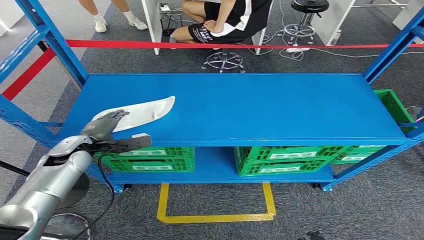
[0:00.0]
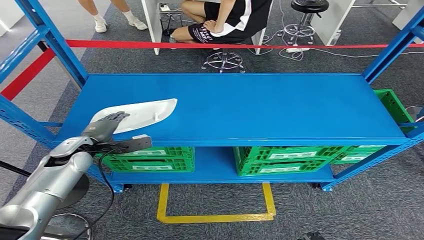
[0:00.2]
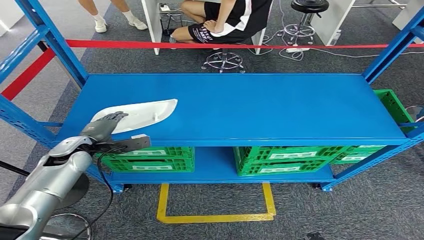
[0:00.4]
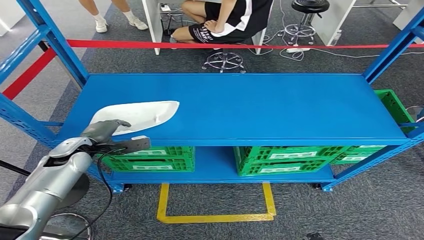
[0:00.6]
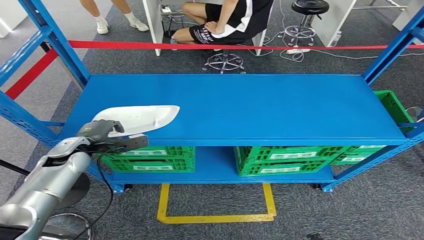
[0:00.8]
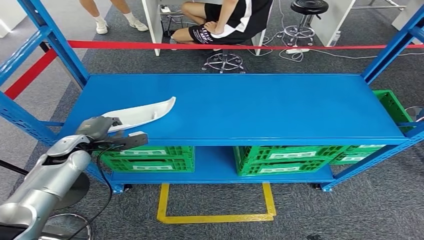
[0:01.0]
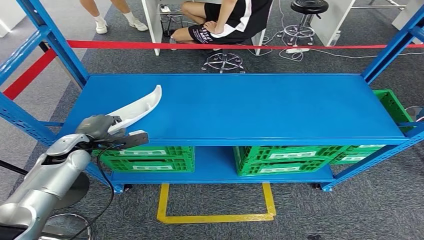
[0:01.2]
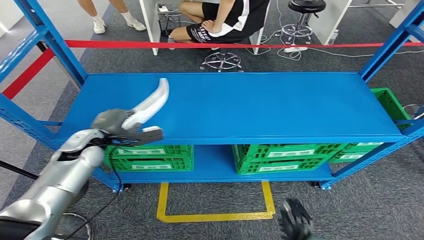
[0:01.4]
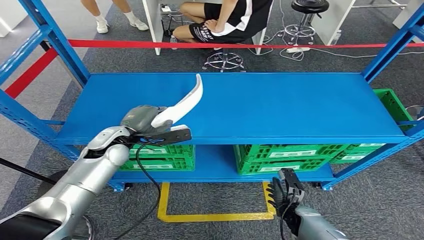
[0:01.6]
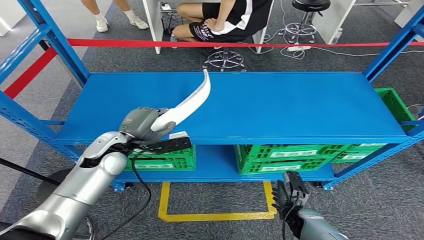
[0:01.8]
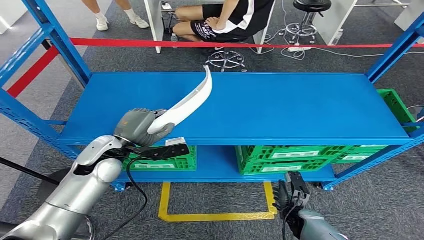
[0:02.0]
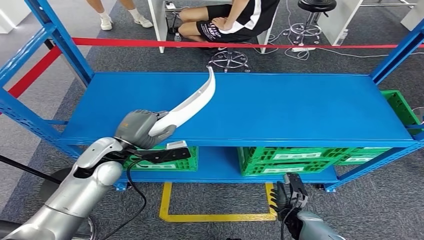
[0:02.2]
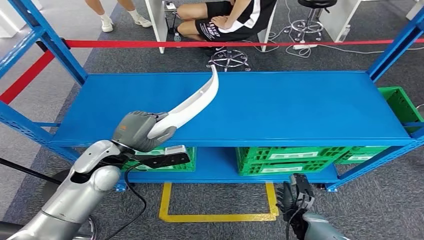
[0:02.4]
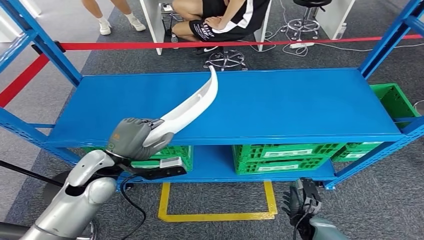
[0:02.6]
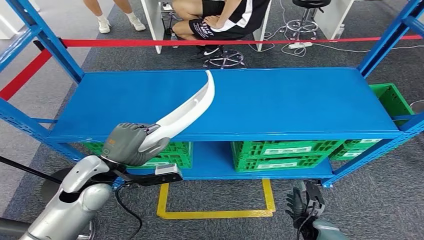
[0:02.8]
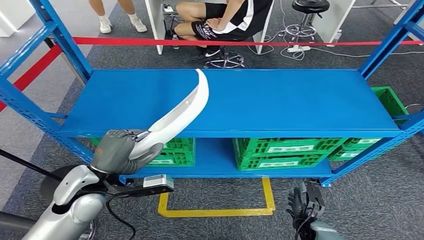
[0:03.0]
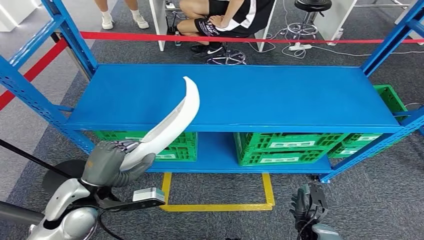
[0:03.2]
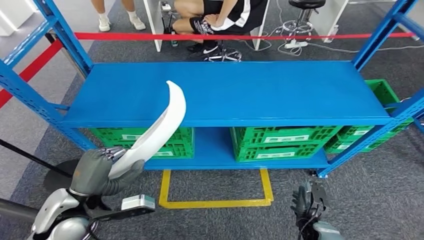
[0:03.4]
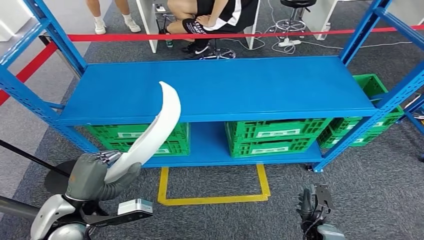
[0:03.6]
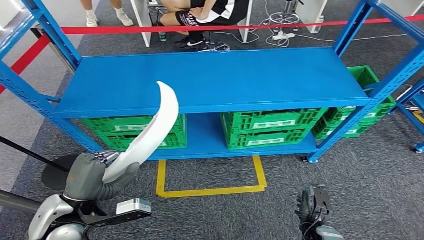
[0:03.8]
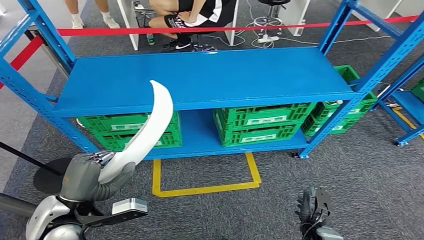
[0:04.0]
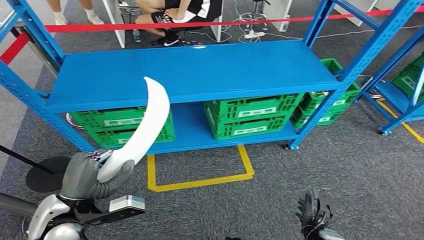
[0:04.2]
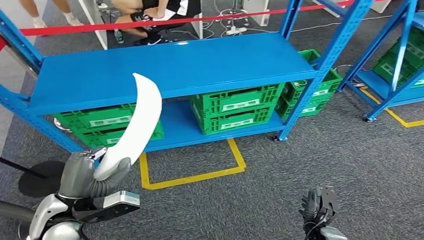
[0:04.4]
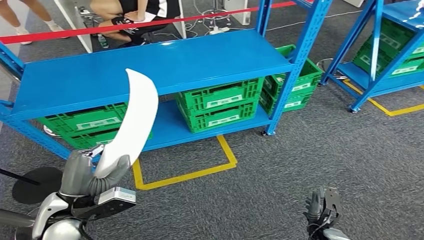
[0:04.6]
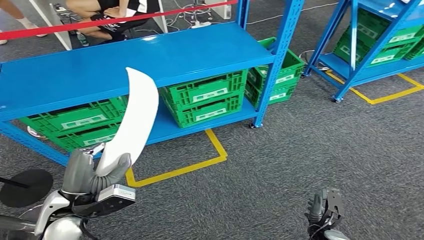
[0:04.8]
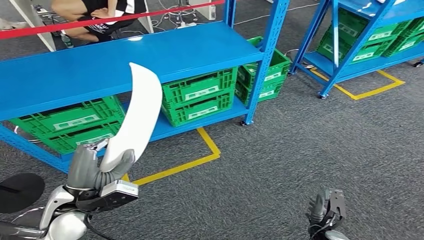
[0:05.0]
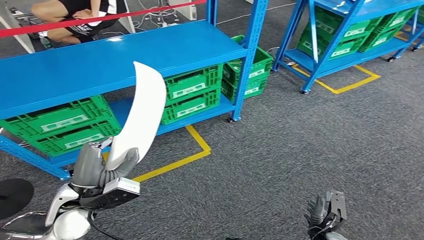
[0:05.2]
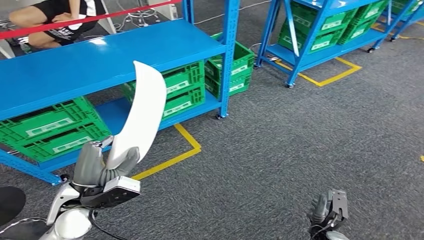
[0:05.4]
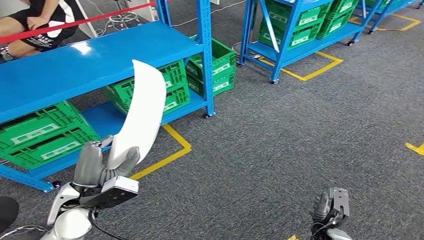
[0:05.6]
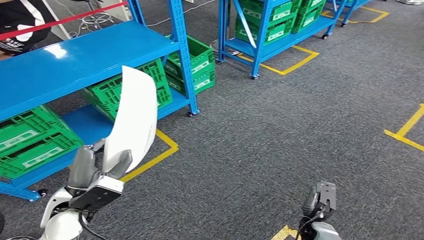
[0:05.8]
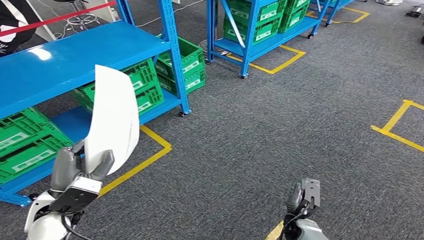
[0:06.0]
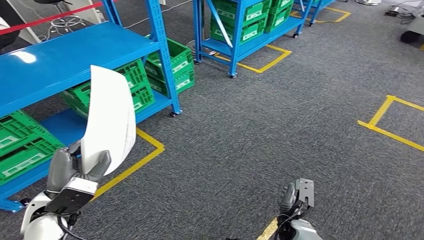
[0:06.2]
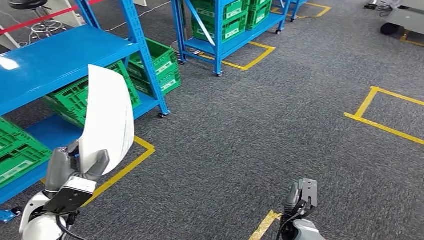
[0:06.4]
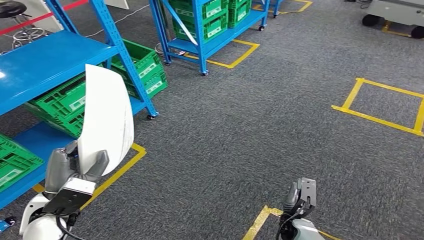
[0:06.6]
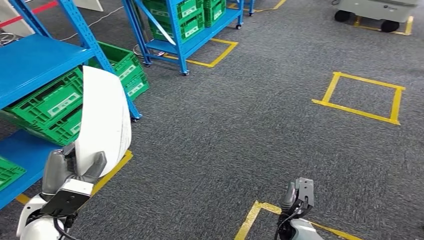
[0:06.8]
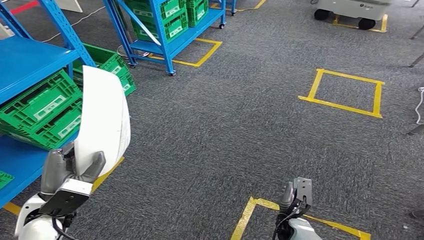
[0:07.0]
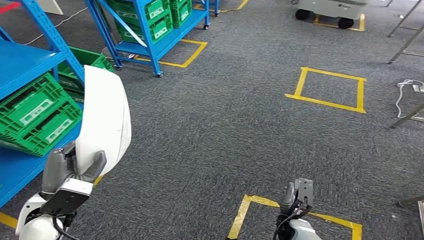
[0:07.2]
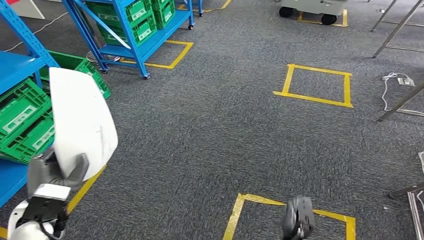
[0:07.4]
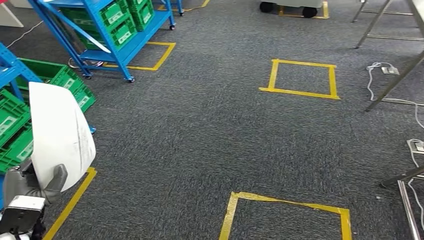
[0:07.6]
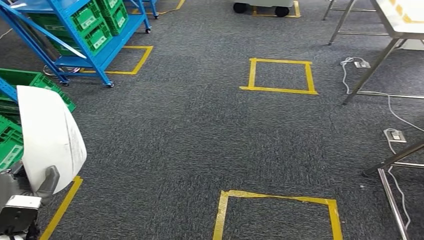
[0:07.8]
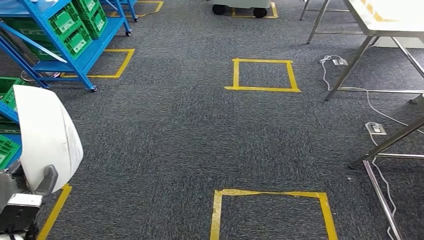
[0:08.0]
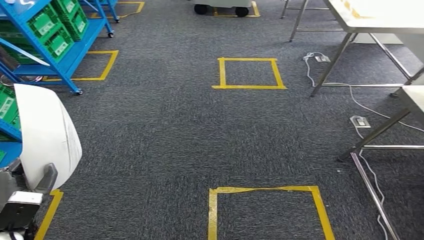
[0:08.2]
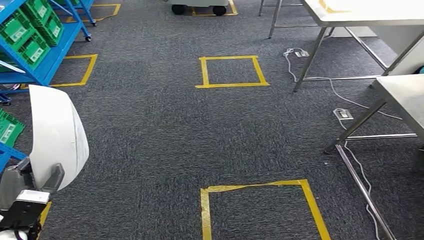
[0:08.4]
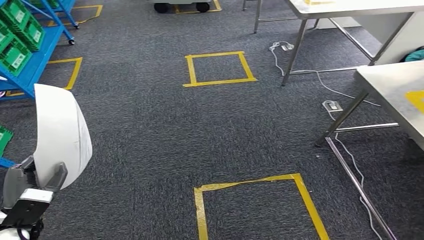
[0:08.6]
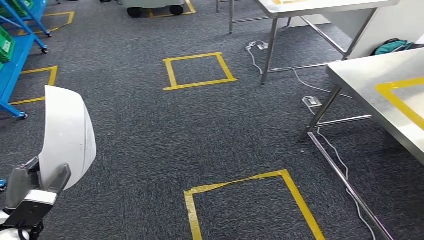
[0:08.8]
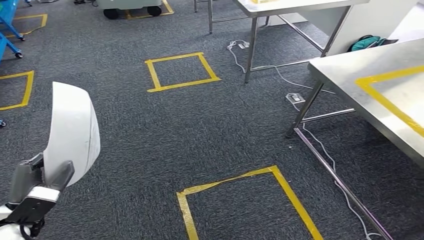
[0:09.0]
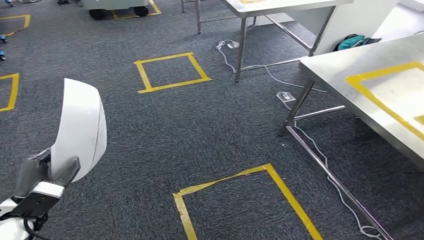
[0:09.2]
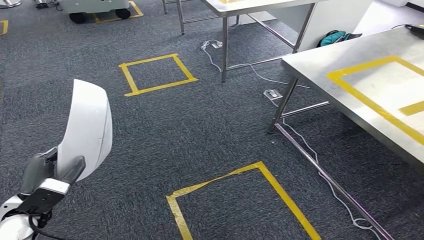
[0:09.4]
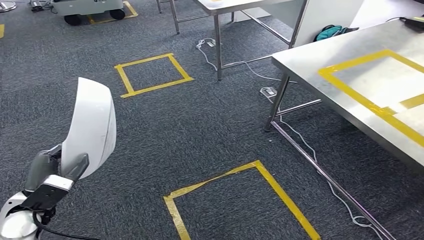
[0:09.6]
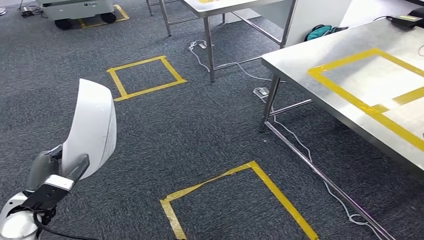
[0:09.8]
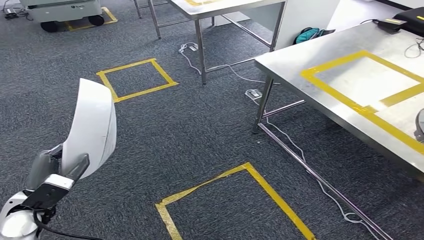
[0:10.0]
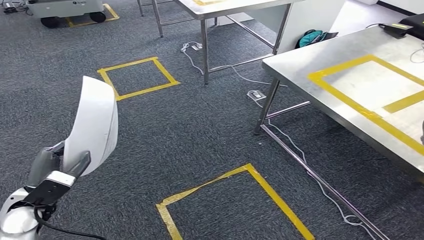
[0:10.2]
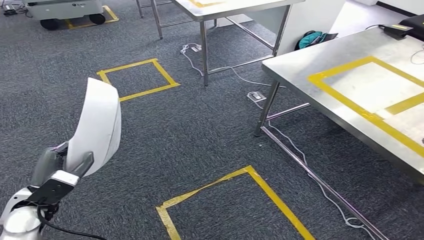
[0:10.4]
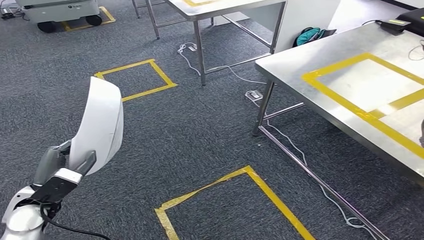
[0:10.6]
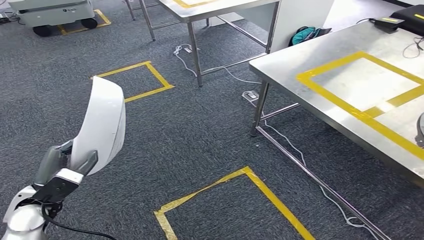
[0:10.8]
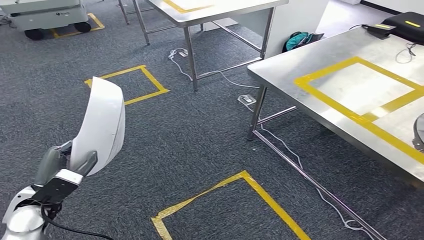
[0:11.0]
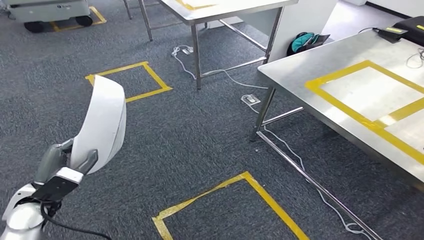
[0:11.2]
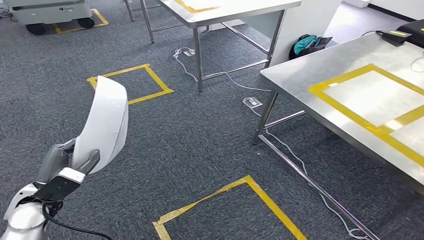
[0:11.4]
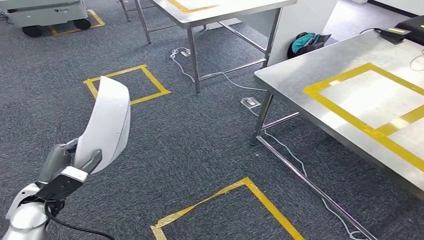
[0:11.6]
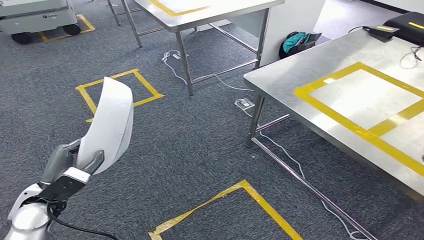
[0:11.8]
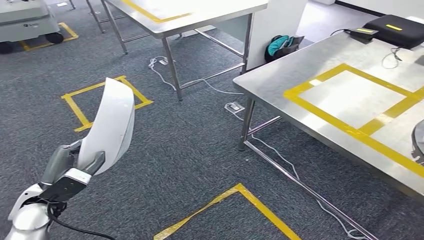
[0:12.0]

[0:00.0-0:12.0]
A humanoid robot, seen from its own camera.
Step, 0:00.0 to 0:03.4: Pick up the small parts from the shelf.

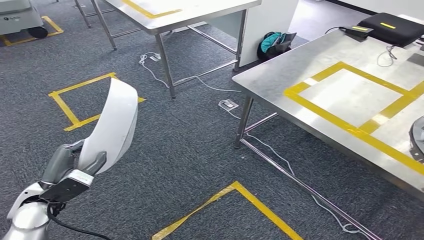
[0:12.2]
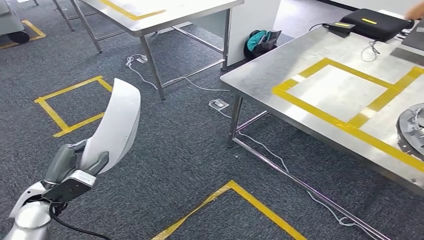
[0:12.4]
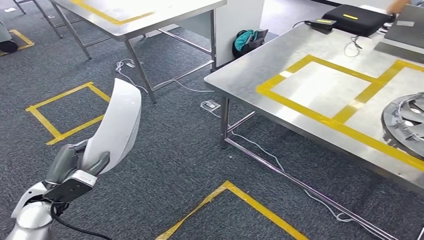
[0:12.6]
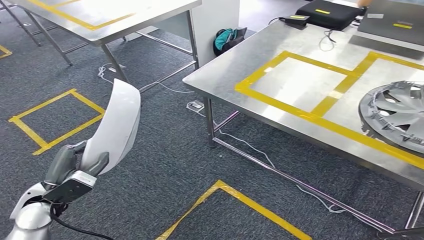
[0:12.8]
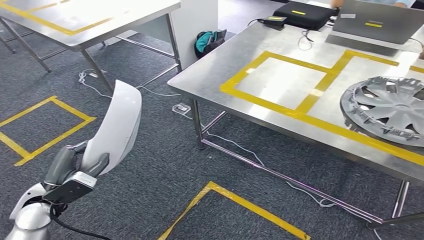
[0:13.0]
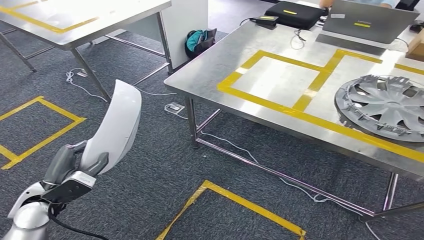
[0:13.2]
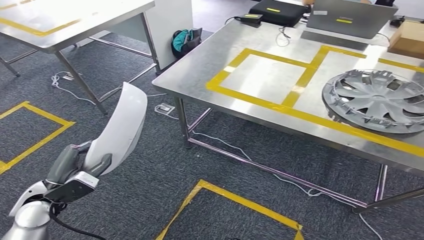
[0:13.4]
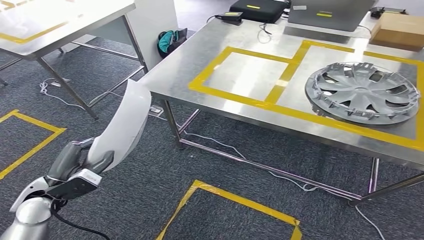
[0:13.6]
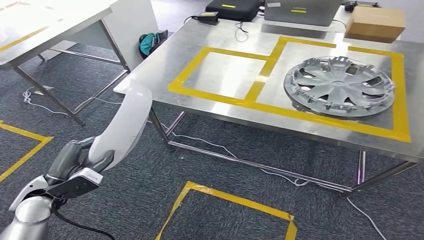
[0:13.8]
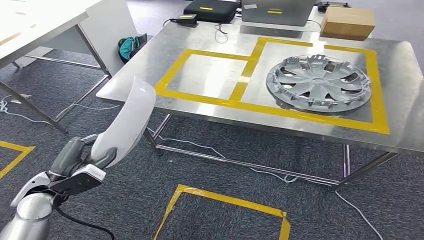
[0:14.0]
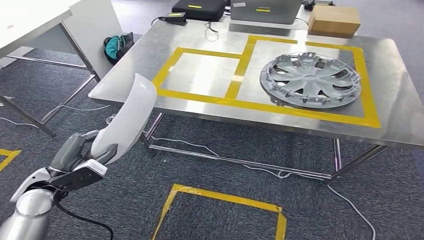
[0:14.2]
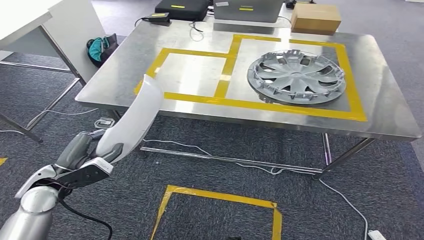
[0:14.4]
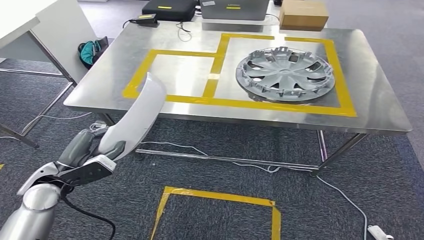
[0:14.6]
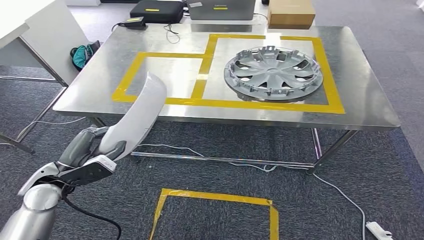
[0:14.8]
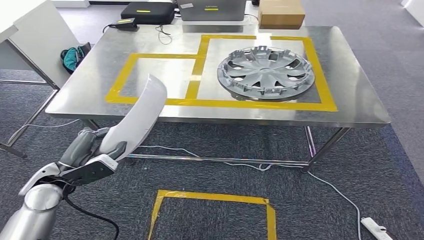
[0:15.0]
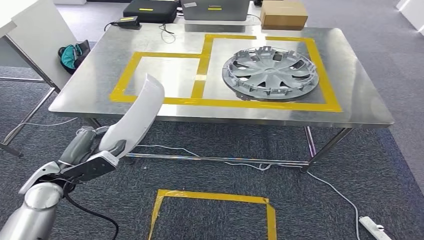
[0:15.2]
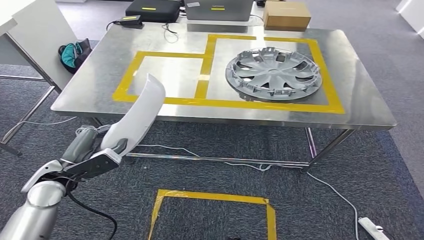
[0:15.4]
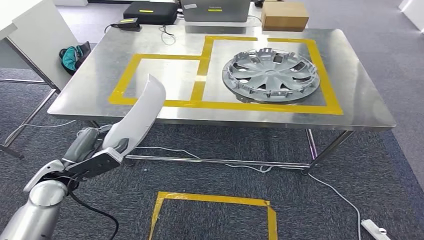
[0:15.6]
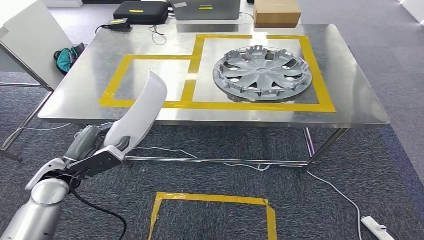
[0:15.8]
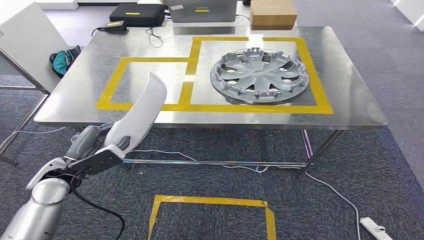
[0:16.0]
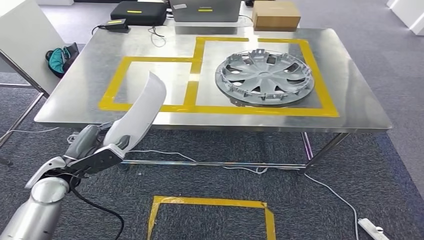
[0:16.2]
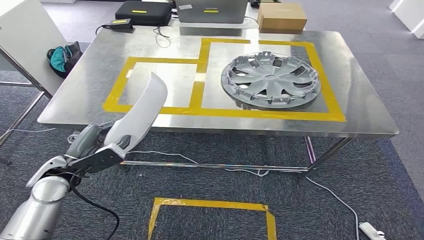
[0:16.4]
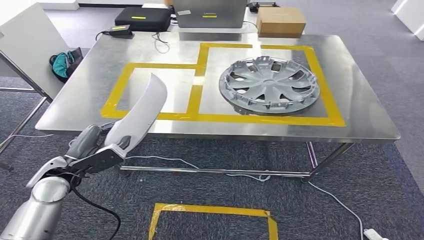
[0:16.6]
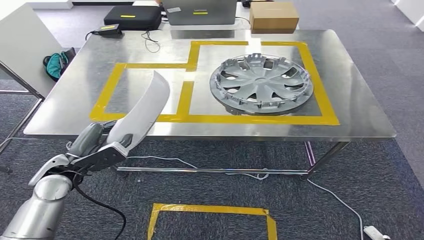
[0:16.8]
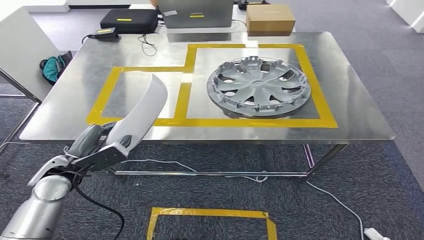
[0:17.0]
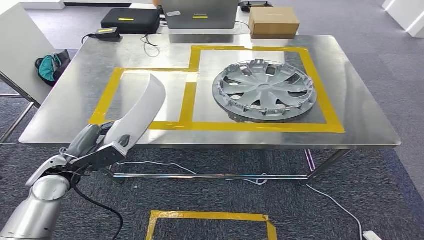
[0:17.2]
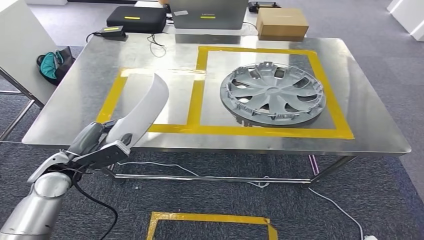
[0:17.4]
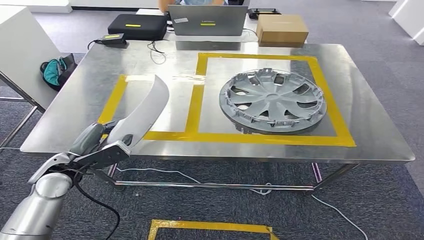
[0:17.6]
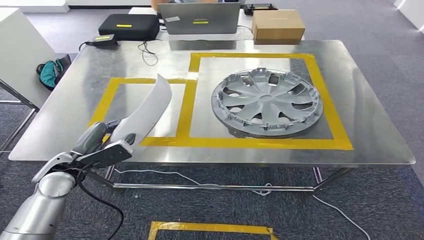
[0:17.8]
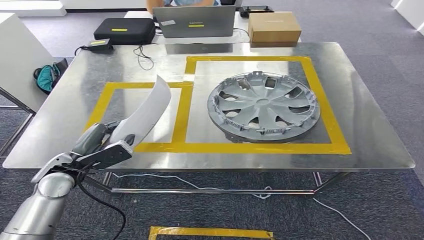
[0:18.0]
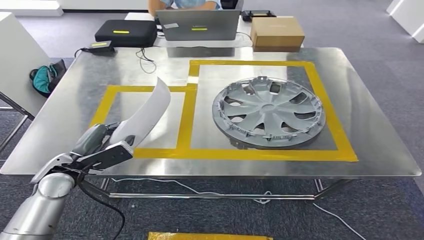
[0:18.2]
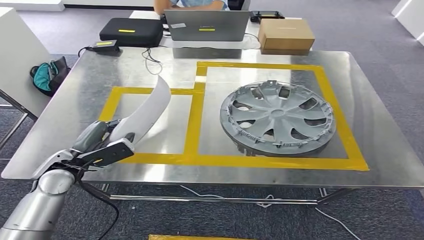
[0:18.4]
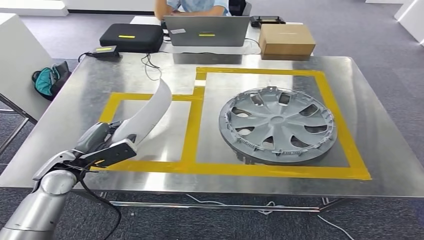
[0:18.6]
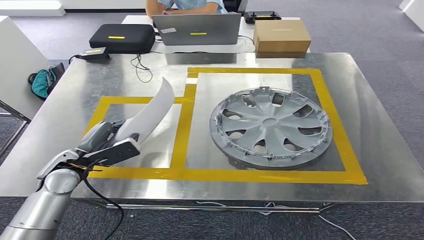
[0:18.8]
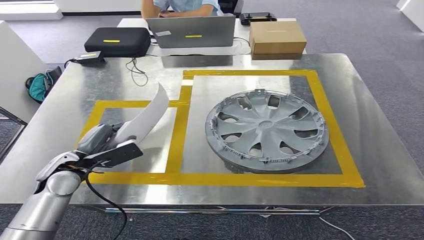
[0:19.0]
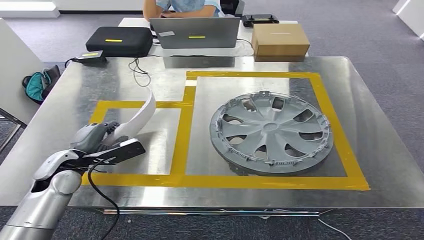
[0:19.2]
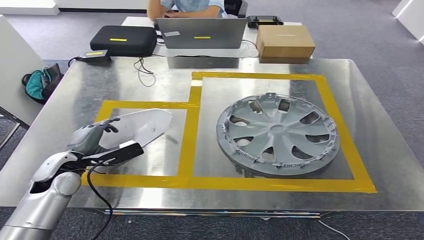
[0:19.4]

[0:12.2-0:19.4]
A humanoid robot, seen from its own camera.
Step, 0:12.2 to 0:14.8: Move the small parts to the workbench.
